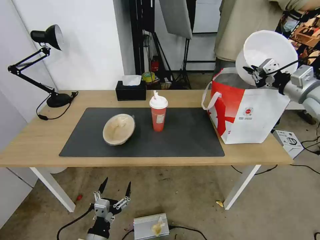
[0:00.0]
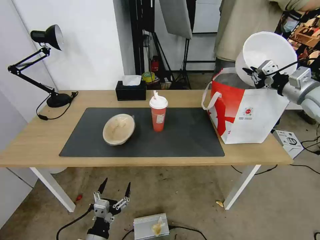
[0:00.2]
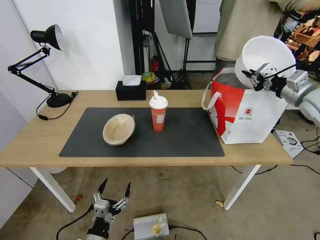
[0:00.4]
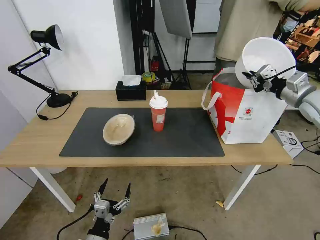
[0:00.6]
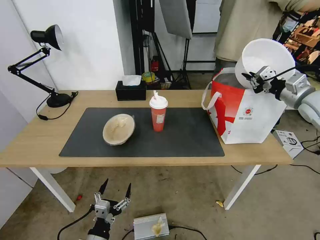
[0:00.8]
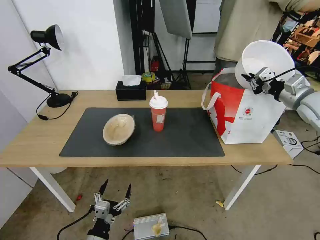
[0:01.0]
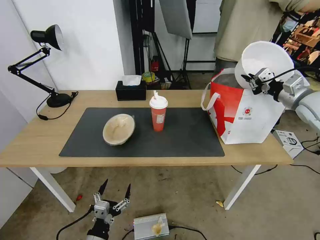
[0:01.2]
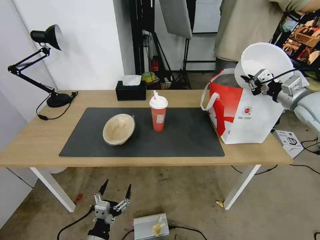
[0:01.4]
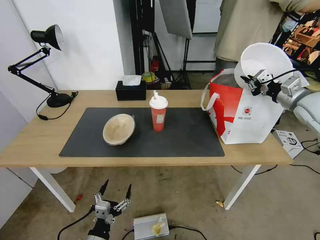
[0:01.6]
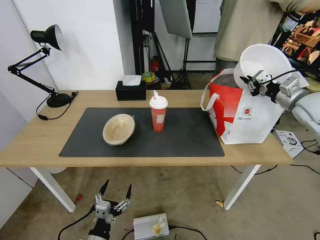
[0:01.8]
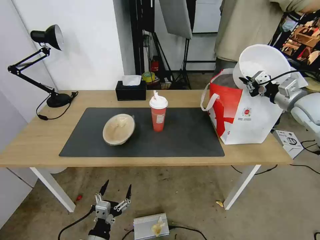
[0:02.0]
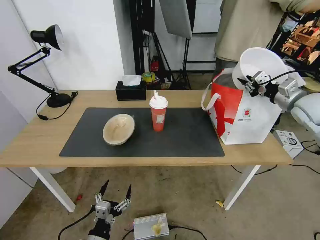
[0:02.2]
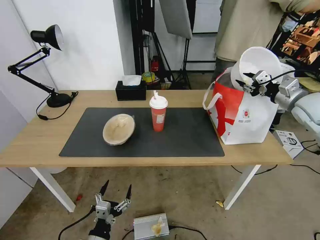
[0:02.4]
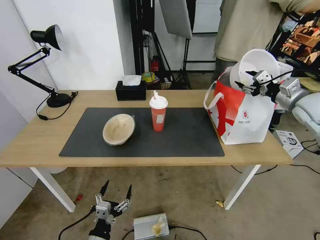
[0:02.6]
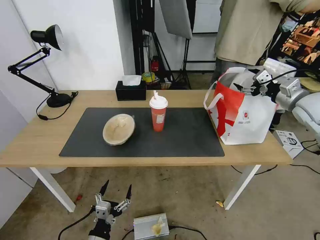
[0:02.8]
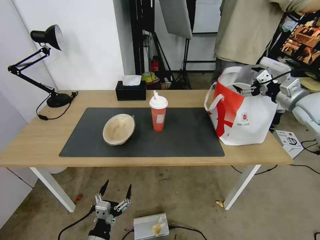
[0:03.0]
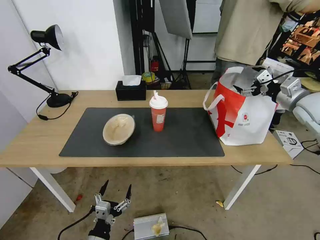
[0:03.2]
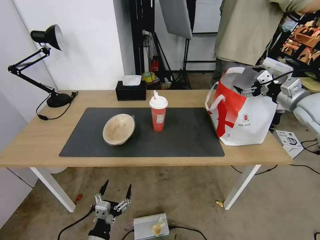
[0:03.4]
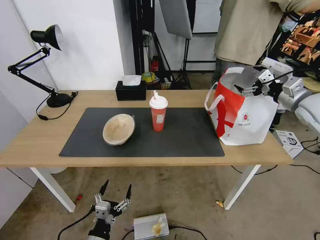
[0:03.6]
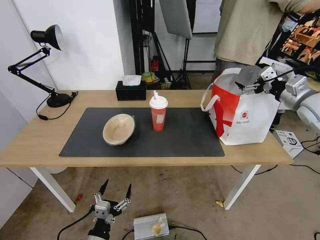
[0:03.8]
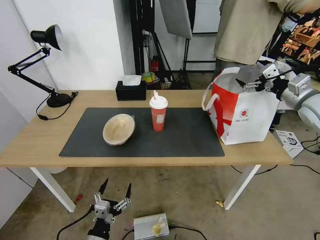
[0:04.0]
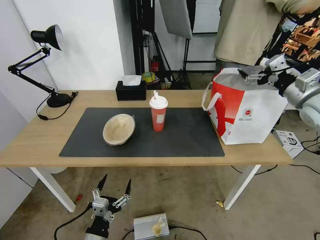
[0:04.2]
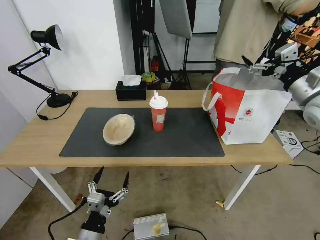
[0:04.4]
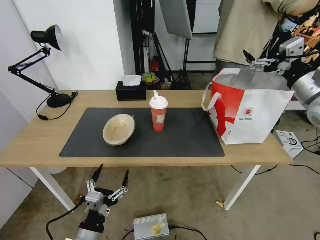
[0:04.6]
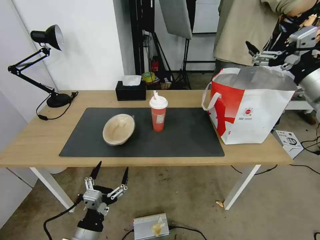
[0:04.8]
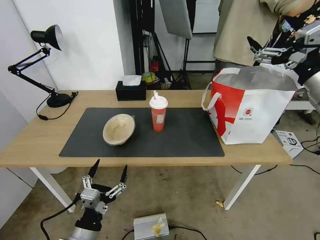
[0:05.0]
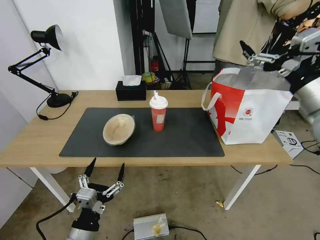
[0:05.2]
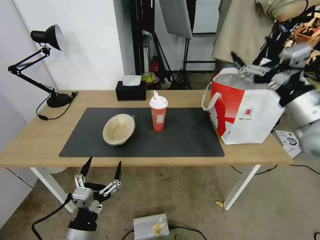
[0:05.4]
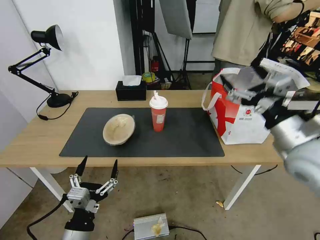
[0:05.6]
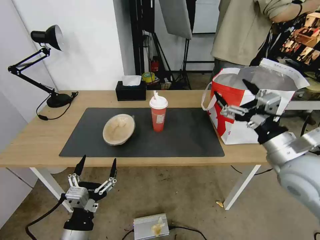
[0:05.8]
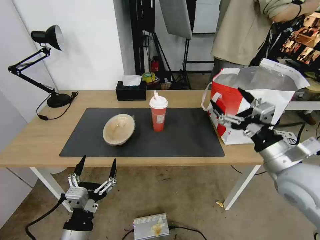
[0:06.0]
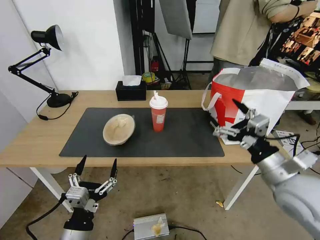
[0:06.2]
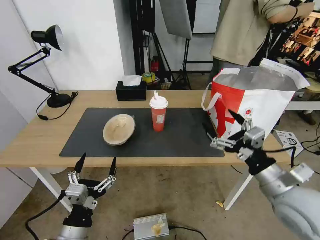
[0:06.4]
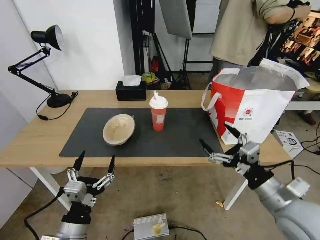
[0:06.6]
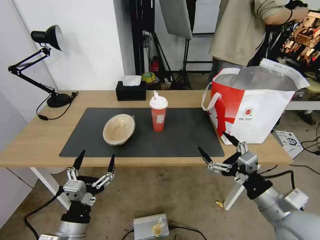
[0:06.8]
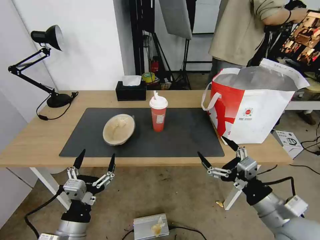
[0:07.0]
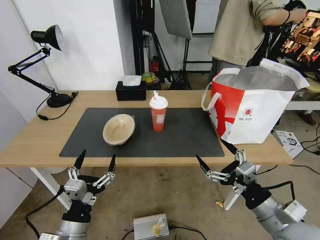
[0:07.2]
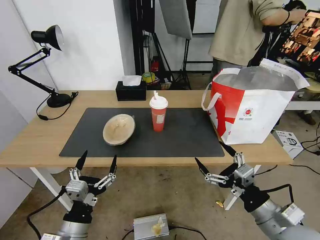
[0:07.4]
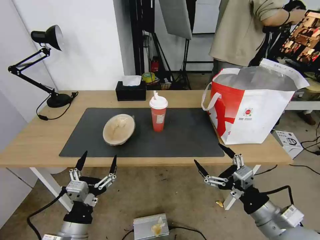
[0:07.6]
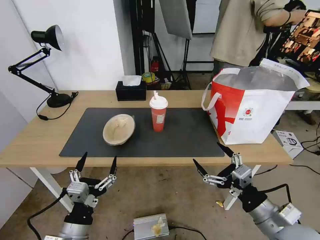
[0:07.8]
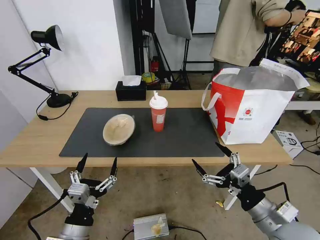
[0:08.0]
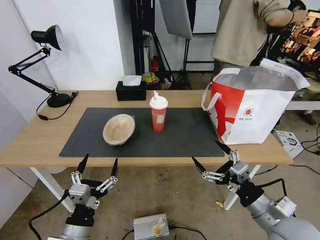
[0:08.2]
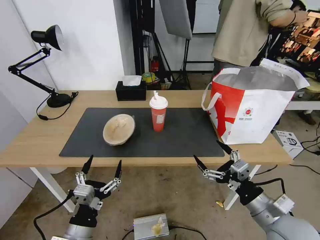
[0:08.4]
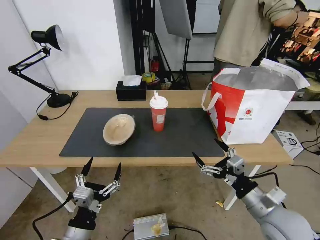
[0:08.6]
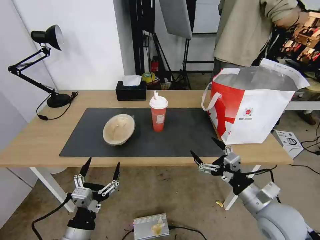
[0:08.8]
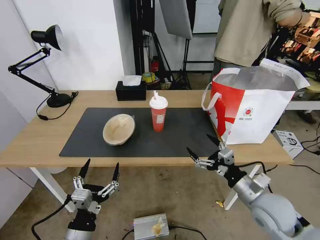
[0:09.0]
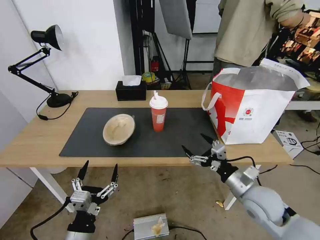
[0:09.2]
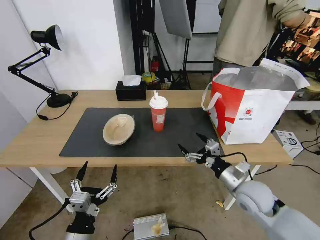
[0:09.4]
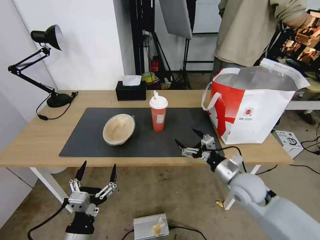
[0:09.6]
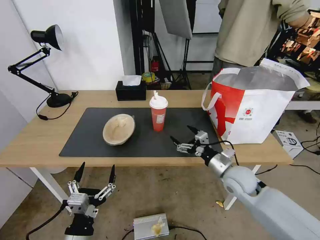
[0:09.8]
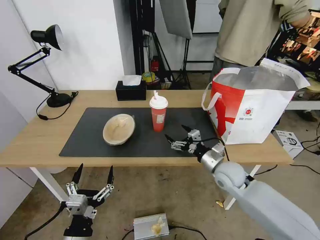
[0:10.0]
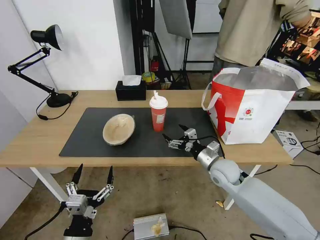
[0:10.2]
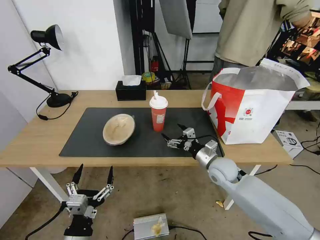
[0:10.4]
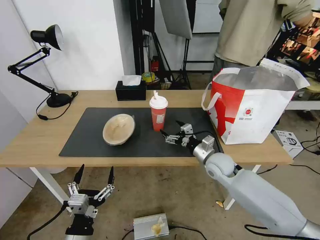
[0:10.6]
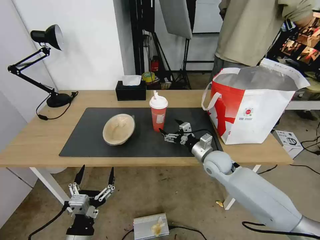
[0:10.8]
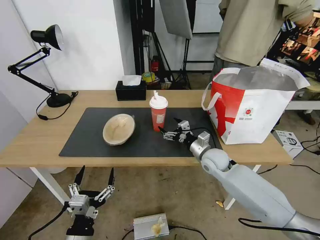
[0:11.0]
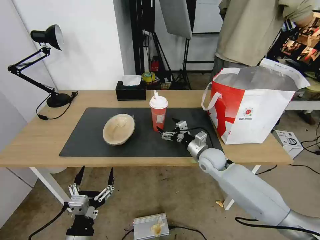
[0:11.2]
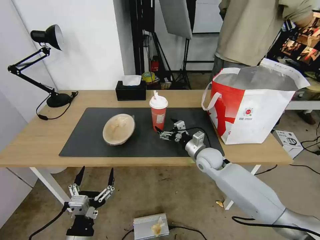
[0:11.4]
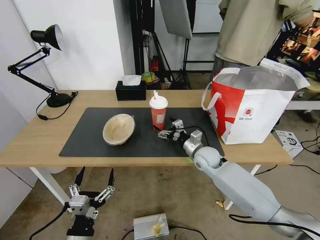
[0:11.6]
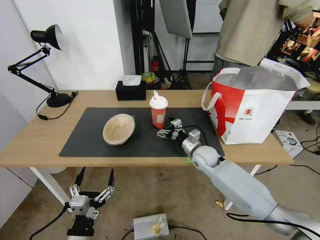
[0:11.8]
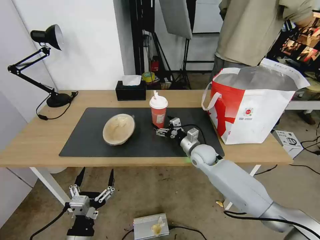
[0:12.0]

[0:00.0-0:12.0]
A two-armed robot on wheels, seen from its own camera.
Task of the whole recording: Pick up the trash from the table and place it into the takeout bag.
0:00.0 to 0:01.6: The grippers stay close to where they were, moving slightly.
0:01.6 to 0:03.0: The right gripper opens up.
0:03.0 to 0:04.4: The right gripper heads backward, covering some 5 cm. The left gripper is displaced upward by approximately 5 cm.
0:04.4 to 0:06.0: The right gripper heads backward, to the left and downward, covering about 20 cm, while the left gripper travels upward by some 5 cm.
0:06.0 to 0:07.6: The right gripper travels backward and downward by roughly 15 cm.
0:07.6 to 0:09.0: The right gripper travels forward by about 10 cm.
0:09.0 to 0:10.4: The right gripper travels forward and to the left by about 15 cm.
0:10.4 to 0:12.0: The right gripper is displaced forward and to the left by approximately 10 cm.

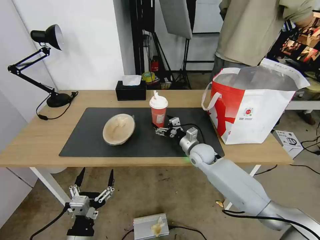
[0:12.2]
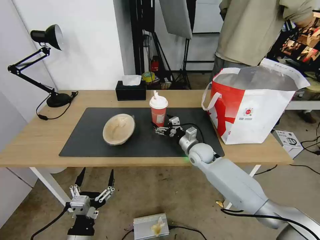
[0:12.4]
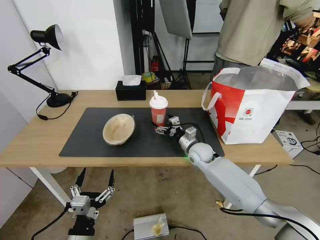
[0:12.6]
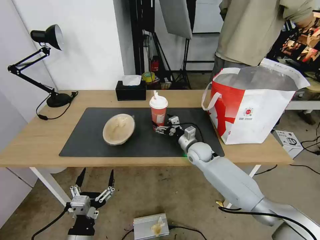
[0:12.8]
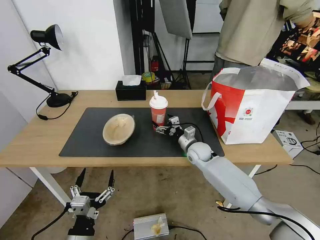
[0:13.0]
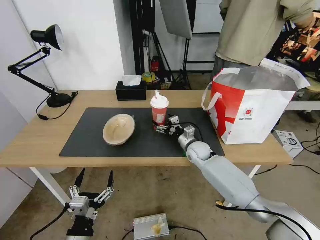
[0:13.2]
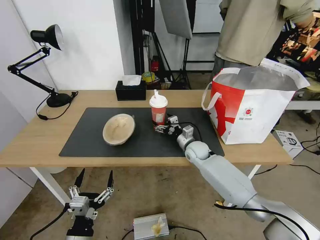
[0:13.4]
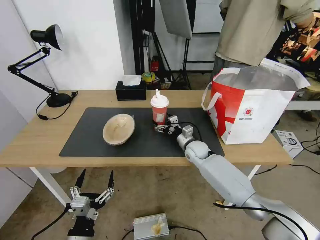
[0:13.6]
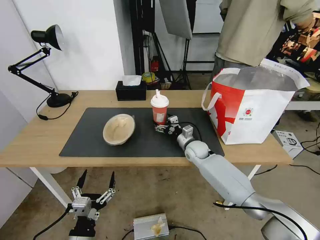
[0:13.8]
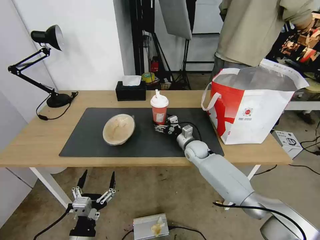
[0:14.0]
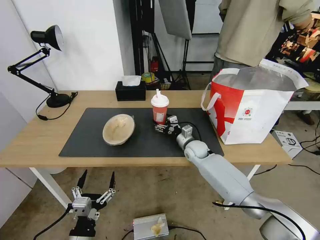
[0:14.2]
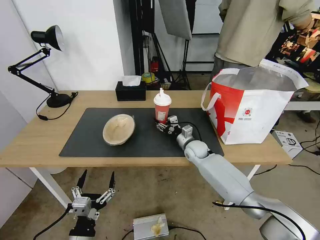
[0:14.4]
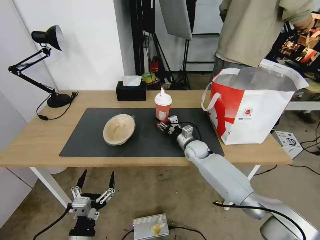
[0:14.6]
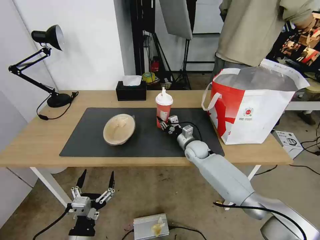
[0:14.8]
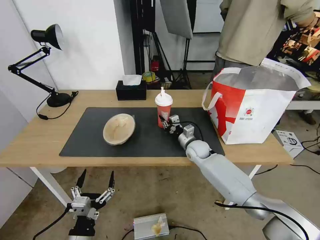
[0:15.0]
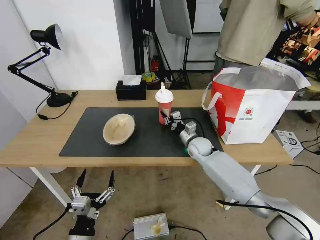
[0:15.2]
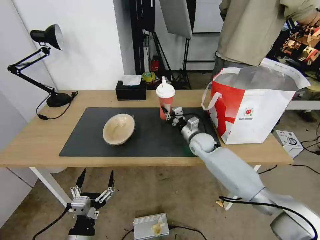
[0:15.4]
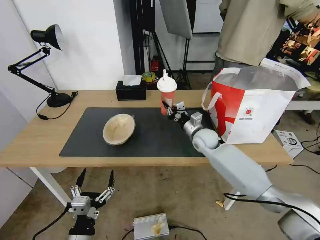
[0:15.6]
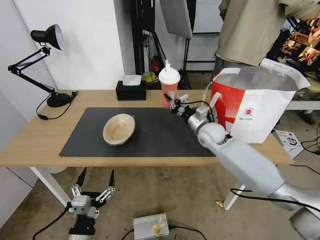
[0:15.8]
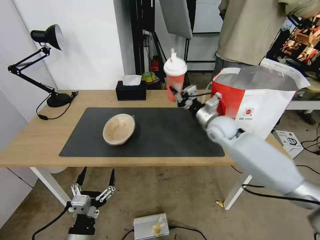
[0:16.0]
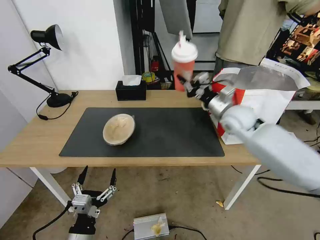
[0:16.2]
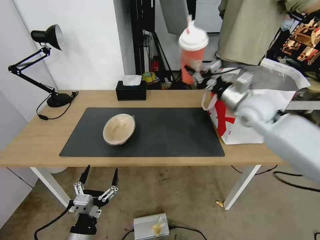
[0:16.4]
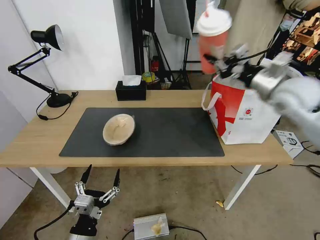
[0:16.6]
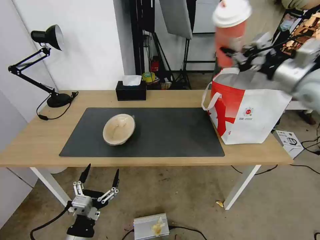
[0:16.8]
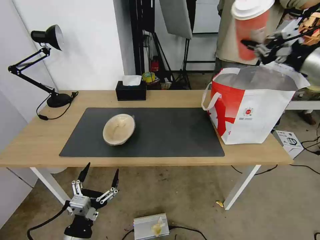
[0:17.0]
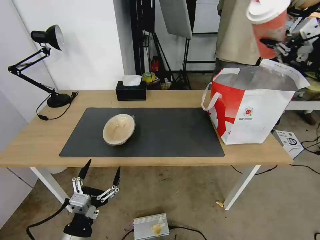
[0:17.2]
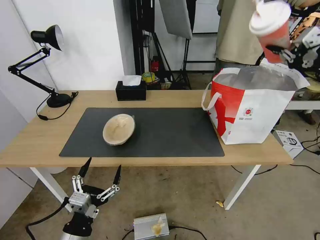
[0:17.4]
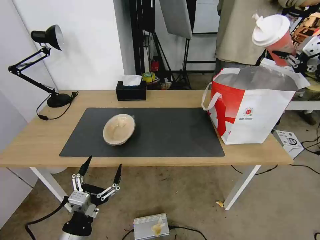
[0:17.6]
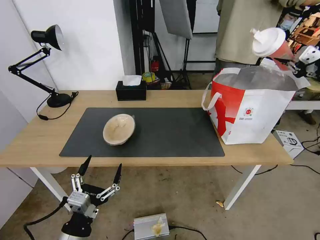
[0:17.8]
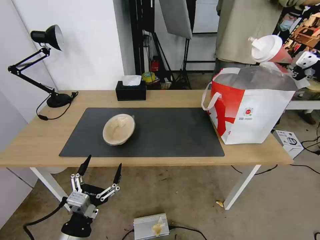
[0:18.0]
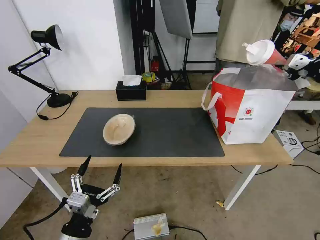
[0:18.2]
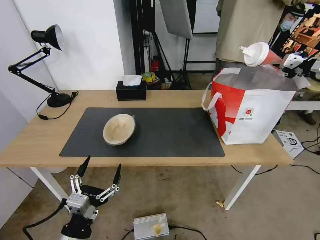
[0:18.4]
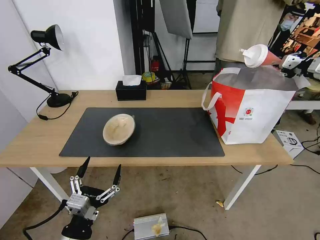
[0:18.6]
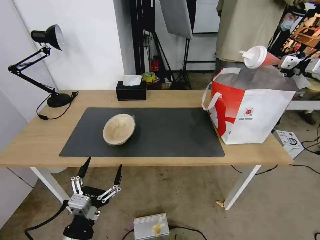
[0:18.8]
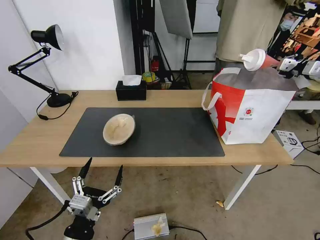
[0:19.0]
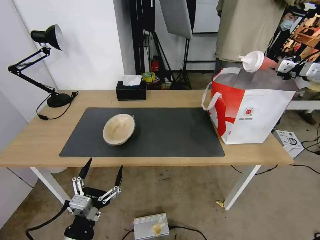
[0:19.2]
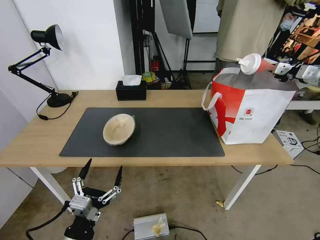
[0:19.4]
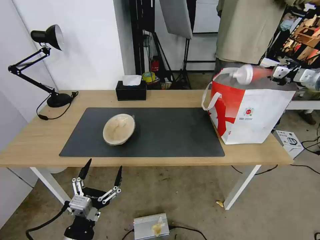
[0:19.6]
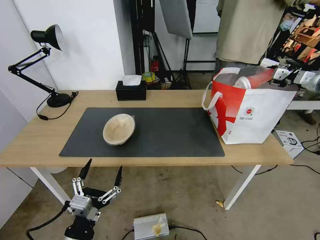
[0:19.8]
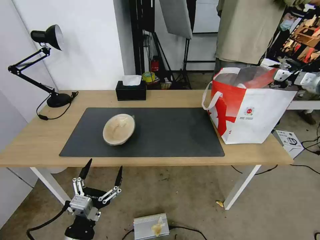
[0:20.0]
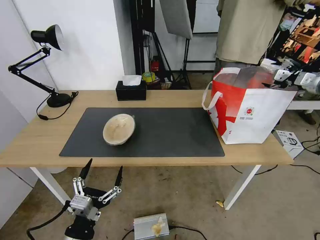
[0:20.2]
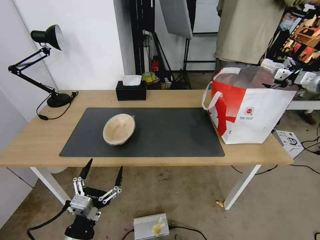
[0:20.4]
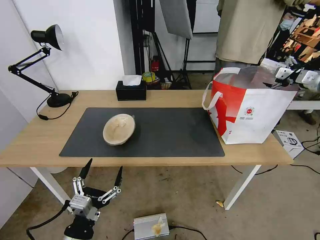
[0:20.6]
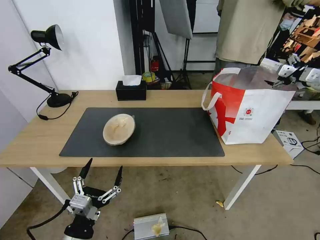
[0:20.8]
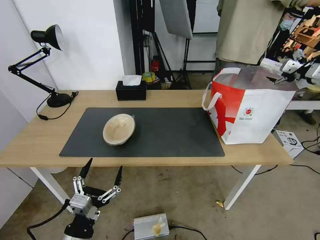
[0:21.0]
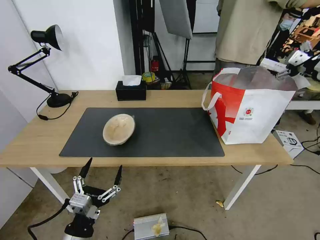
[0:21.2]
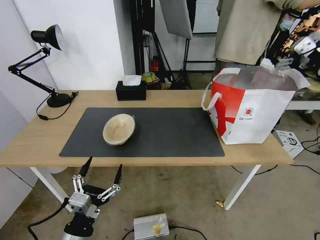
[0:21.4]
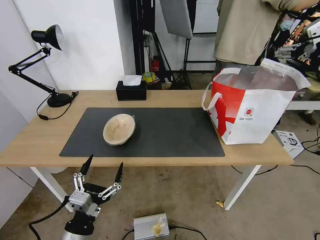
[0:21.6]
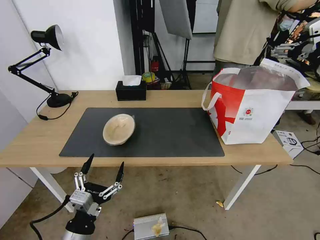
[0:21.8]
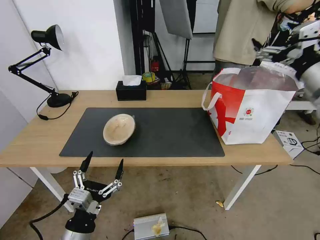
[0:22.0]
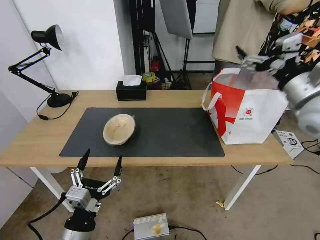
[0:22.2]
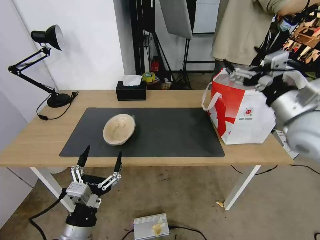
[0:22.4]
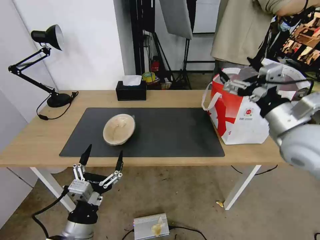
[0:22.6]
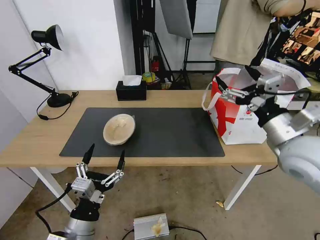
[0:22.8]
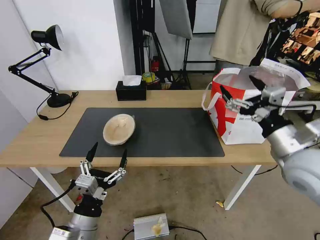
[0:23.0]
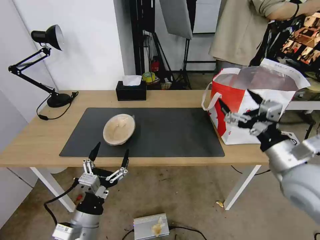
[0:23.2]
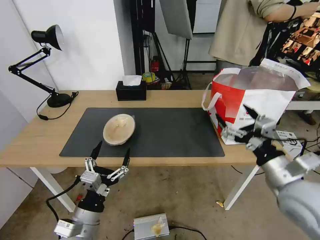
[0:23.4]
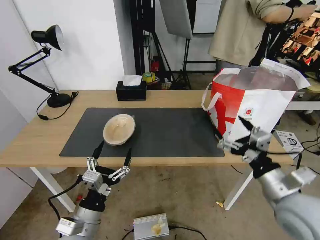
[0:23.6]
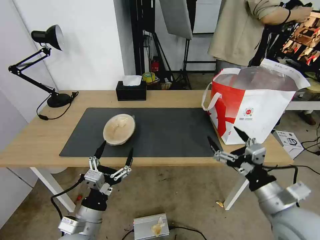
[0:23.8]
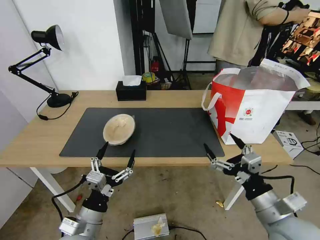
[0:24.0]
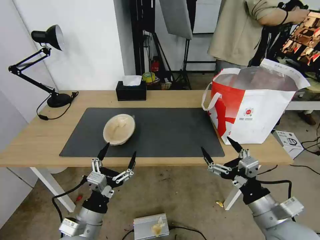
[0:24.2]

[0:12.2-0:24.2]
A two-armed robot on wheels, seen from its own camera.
Task of the whole recording: Pick up the trash from the table and place it into the takeout bag.
0:12.2 to 0:13.8: There are only small adjustments of the grippers.
0:13.8 to 0:15.2: The right gripper closes its fingers.
0:15.2 to 0:16.6: The right gripper is displaced upward and to the right by some 35 cm.
0:16.6 to 0:18.2: The right gripper shifts about 20 cm to the right.
0:18.2 to 0:19.8: The right gripper heads forward and downward, covering roughly 10 cm, and opens.
0:19.8 to 0:21.2: The right gripper heads backward, covering roughly 5 cm, and opens up.
0:21.2 to 0:22.6: The right gripper heads to the left and backward, covering about 30 cm.
0:22.6 to 0:24.2: The right gripper goes some 20 cm downward and backward.
